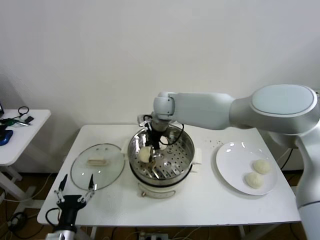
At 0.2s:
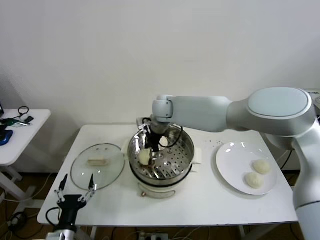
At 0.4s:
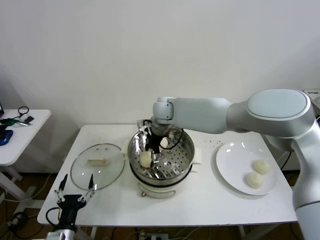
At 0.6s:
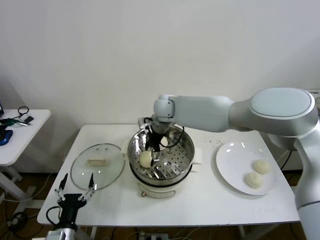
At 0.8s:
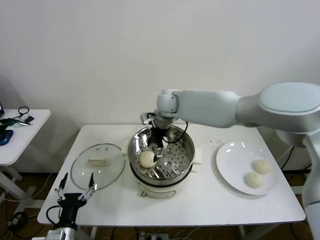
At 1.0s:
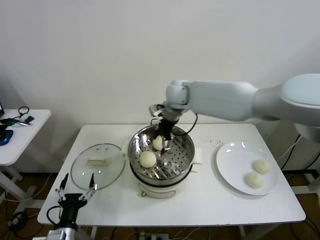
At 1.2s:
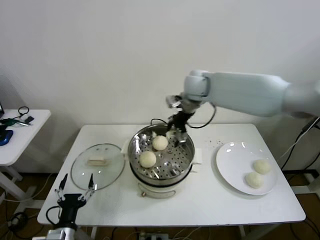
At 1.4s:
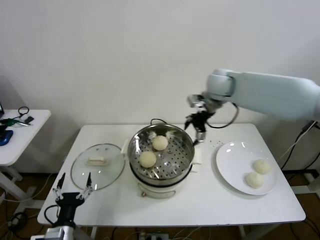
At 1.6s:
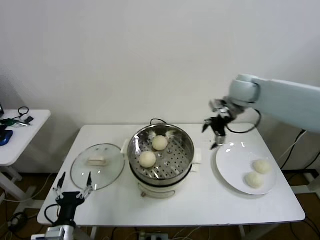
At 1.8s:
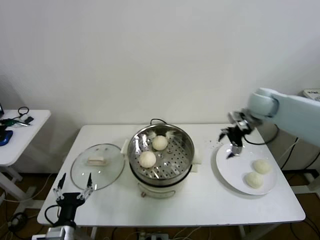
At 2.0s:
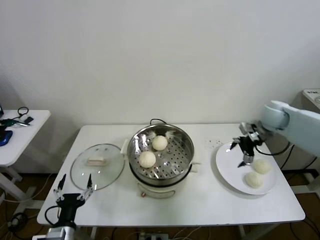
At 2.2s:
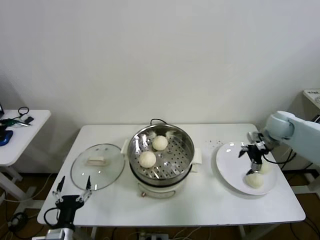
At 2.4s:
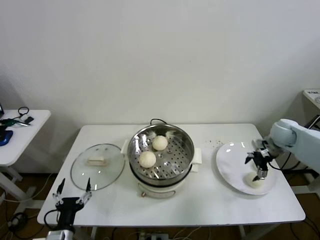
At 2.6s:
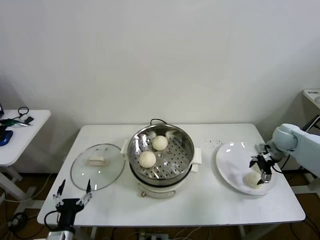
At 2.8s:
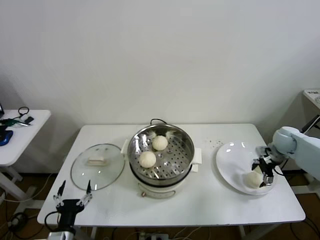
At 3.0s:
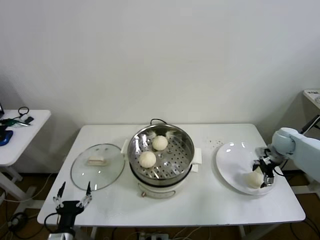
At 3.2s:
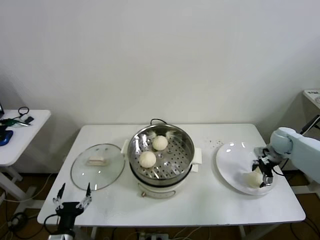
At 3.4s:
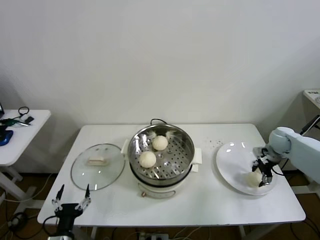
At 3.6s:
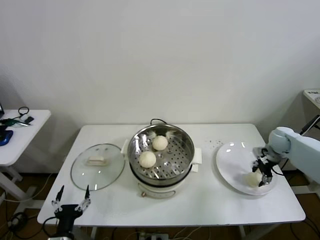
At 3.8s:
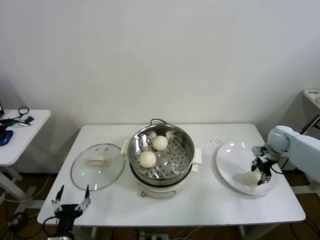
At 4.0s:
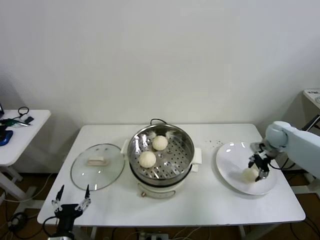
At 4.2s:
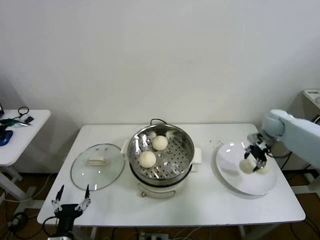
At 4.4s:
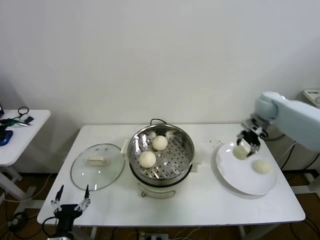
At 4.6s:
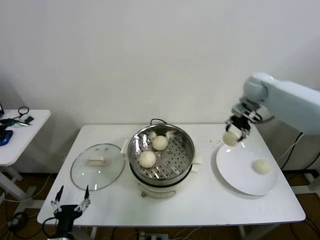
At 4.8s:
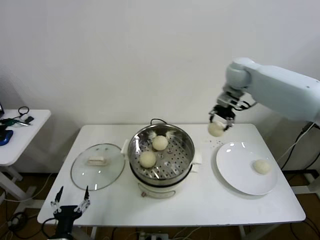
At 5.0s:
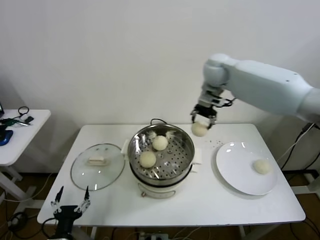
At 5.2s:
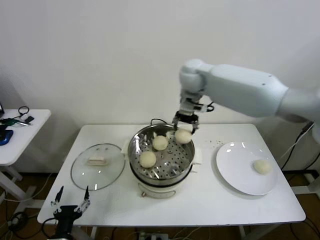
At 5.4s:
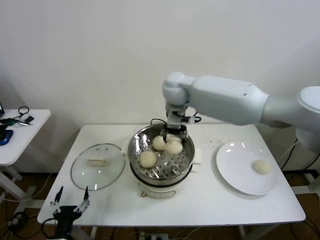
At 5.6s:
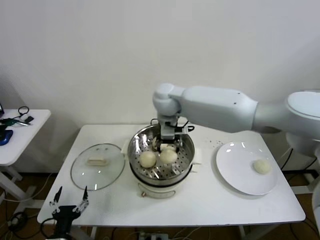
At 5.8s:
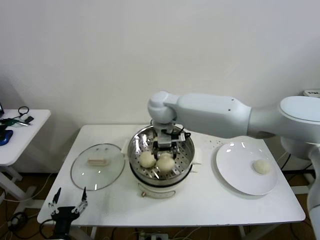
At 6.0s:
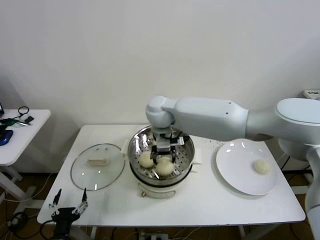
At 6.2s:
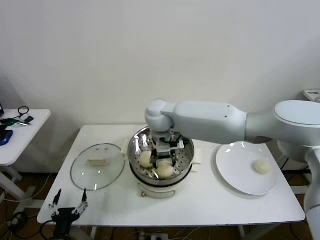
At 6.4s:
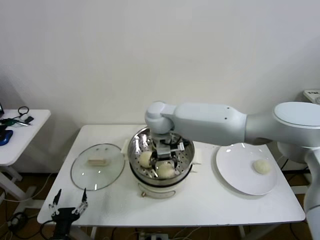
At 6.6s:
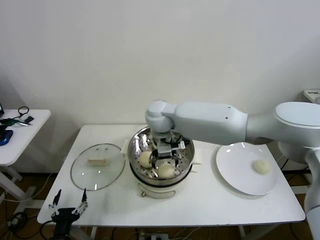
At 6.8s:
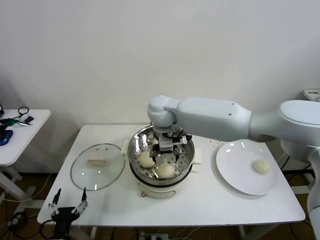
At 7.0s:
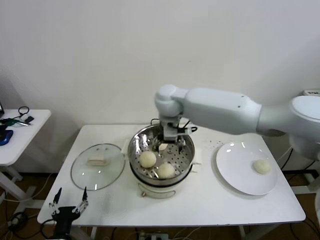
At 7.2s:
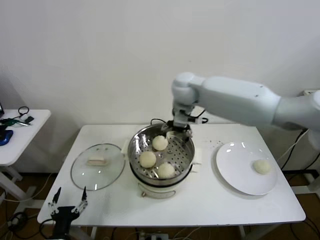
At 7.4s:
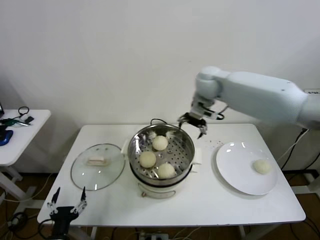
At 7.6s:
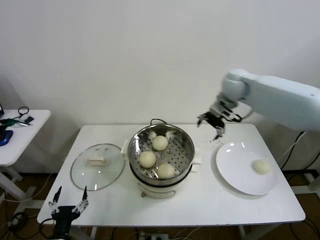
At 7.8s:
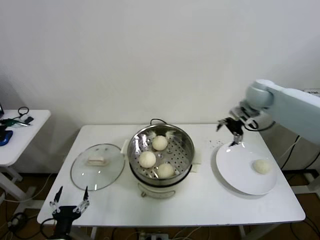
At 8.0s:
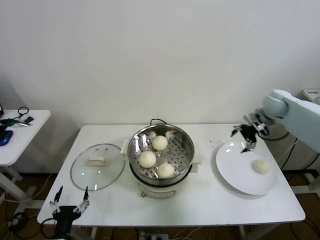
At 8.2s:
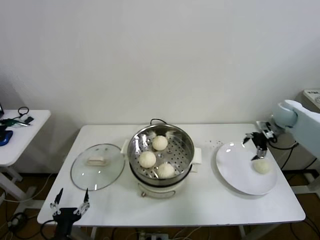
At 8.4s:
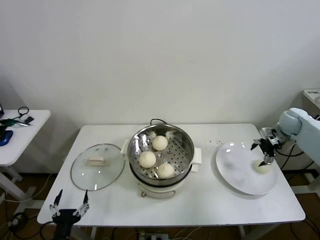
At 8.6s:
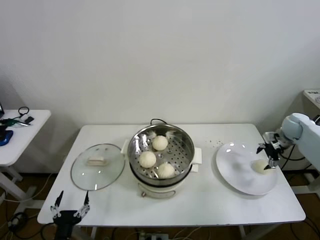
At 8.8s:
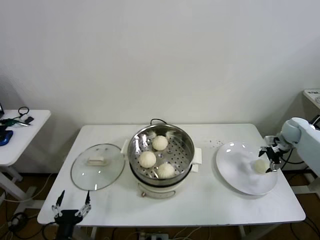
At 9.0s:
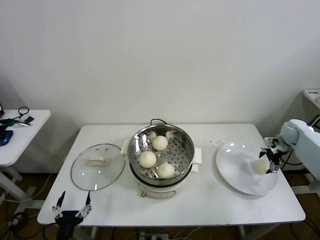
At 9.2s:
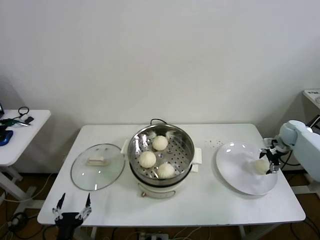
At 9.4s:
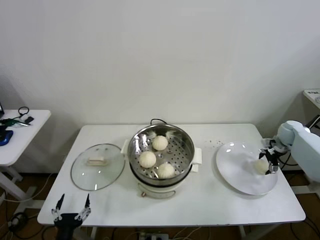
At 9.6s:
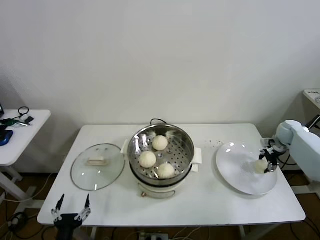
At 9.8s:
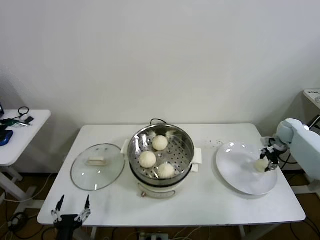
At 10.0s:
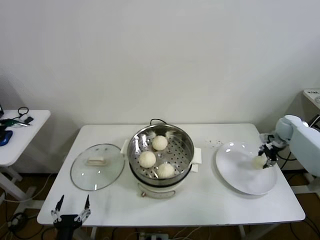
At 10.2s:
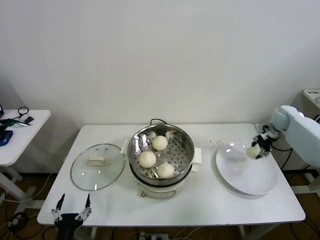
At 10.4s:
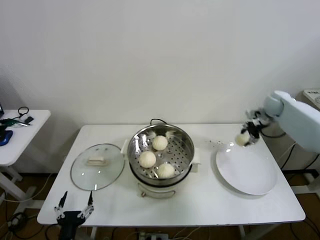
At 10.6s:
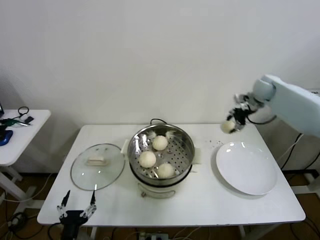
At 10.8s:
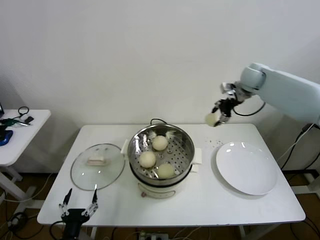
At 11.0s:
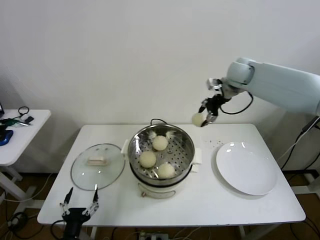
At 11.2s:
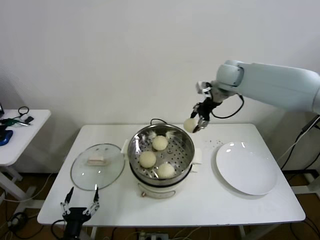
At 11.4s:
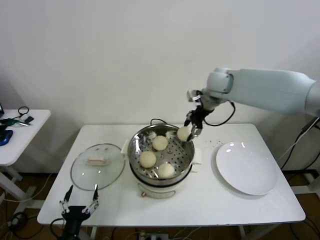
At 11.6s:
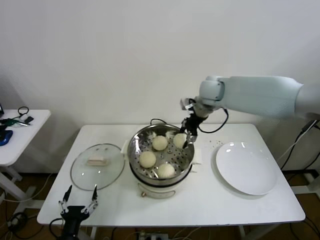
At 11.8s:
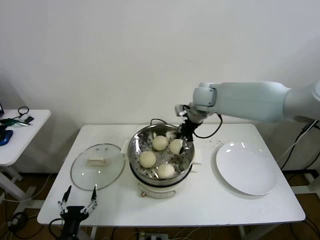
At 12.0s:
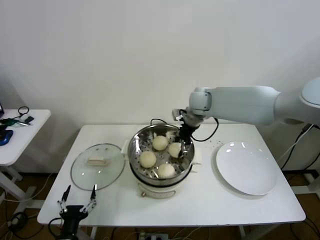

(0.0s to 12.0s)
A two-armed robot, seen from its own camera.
Step, 0.8s - 3.4s: Grasp the baozi in the plate with right gripper.
Step, 3.8s - 6.2s: Place the baozi on the steamer with right gripper.
Step, 6.6s - 9.6s: Grasp the baozi in the plate with right gripper.
0.0s - 1.6s: The right gripper is displaced to the right by roughly 25 cm, and opens its fingers.
1.6s - 3.0s: The right gripper heads downward and to the right, covering roughly 25 cm.
3.0s - 4.4s: The right gripper goes some 20 cm upward, to the left and forward, and closes its fingers.
4.4s - 6.0s: The right gripper is displaced to the left by roughly 40 cm.
6.0s - 7.6s: The right gripper moves to the right, about 25 cm, and opens.
7.6s - 9.0s: The right gripper travels to the right and downward by some 35 cm.
9.0s - 10.4s: The right gripper shifts about 15 cm upward, to the left and forward, and closes up.
10.4s - 12.0s: The right gripper shifts roughly 30 cm to the left.

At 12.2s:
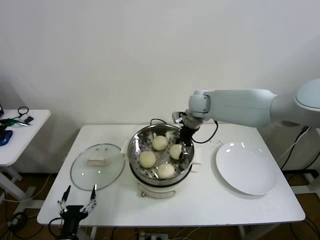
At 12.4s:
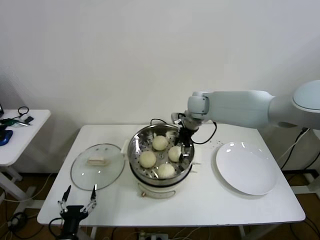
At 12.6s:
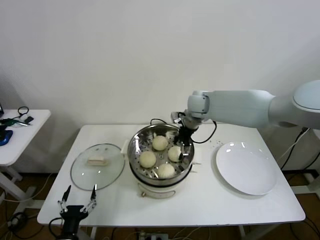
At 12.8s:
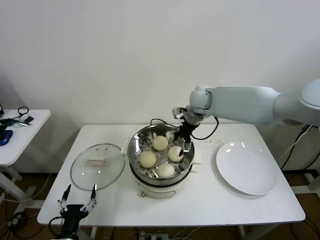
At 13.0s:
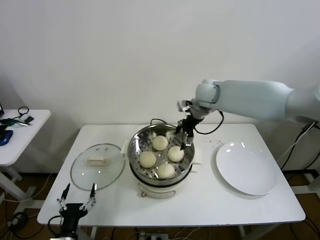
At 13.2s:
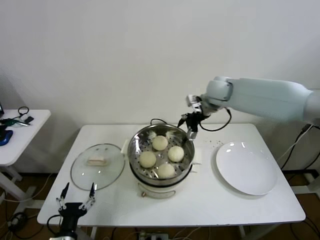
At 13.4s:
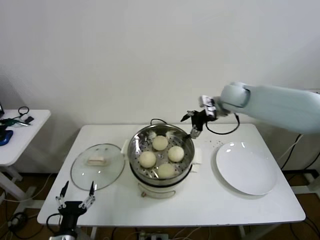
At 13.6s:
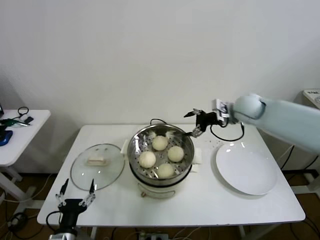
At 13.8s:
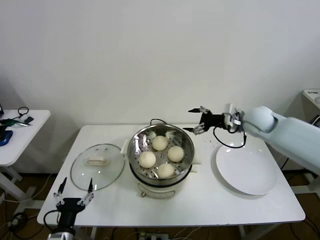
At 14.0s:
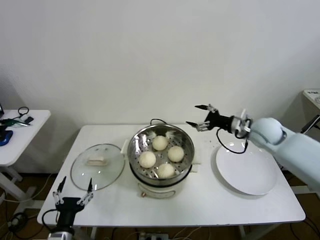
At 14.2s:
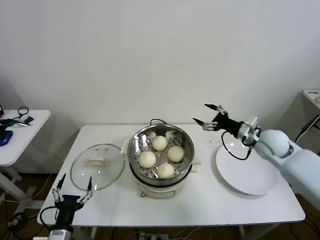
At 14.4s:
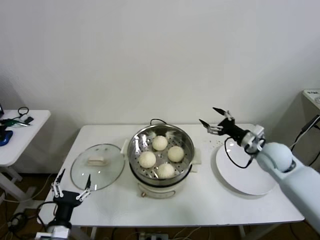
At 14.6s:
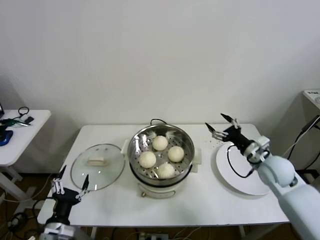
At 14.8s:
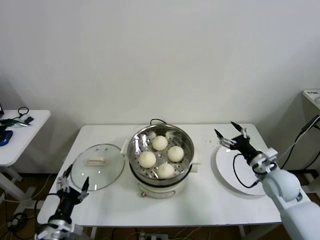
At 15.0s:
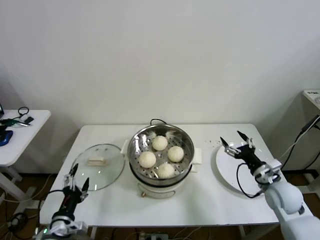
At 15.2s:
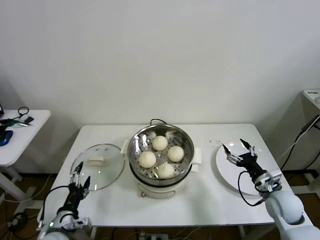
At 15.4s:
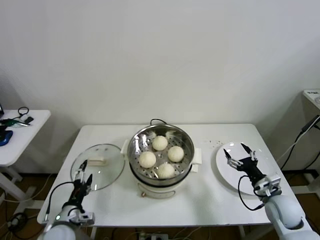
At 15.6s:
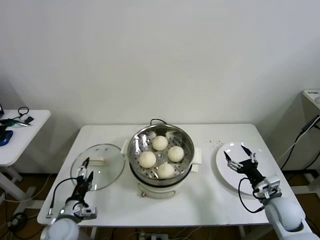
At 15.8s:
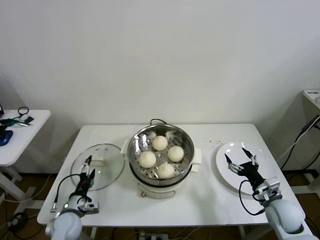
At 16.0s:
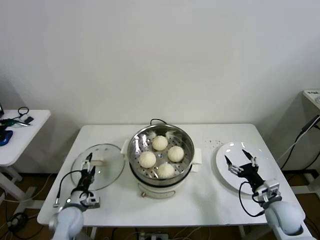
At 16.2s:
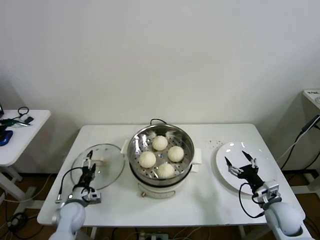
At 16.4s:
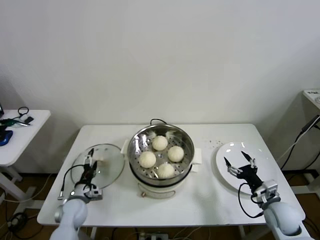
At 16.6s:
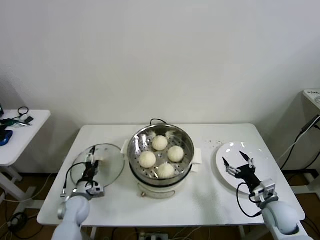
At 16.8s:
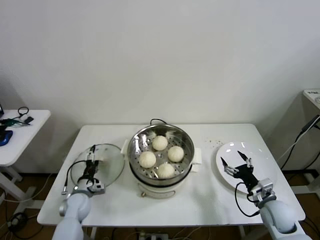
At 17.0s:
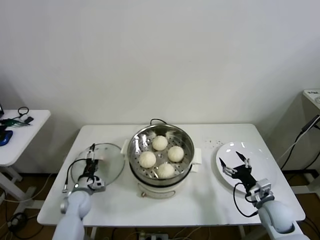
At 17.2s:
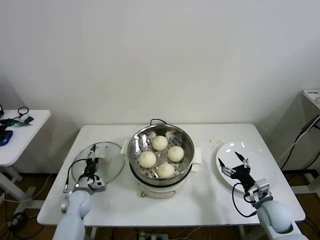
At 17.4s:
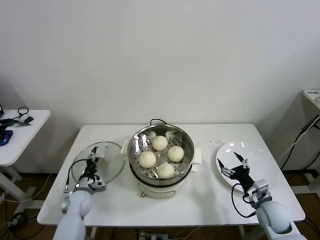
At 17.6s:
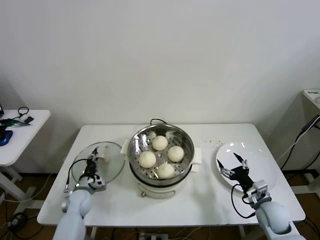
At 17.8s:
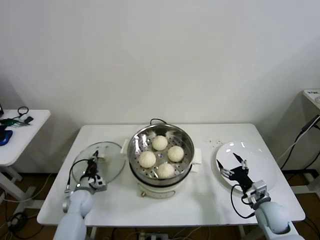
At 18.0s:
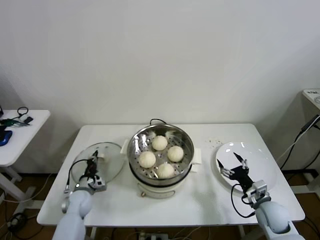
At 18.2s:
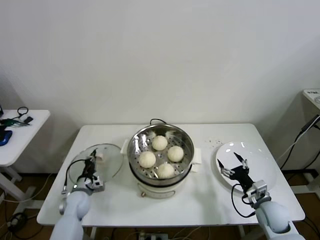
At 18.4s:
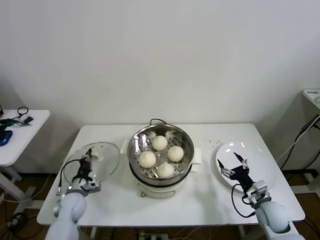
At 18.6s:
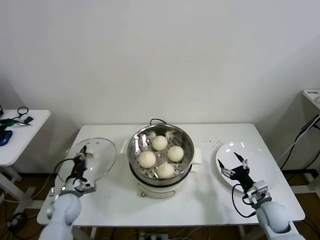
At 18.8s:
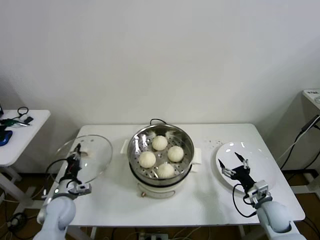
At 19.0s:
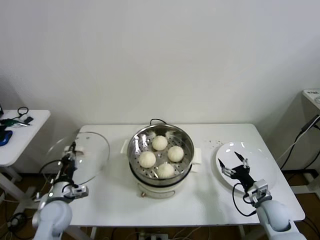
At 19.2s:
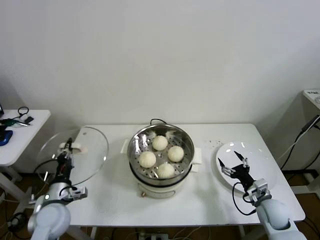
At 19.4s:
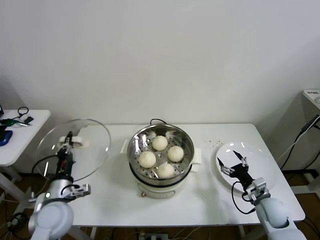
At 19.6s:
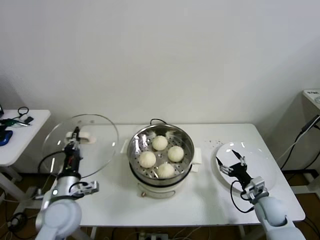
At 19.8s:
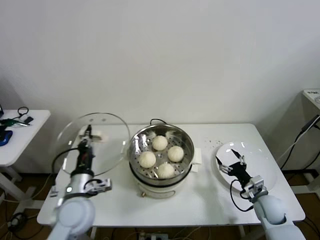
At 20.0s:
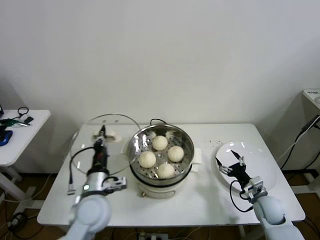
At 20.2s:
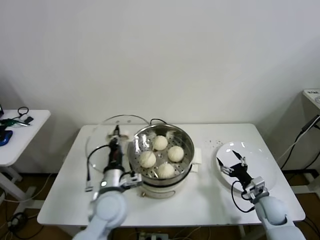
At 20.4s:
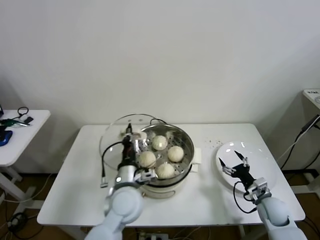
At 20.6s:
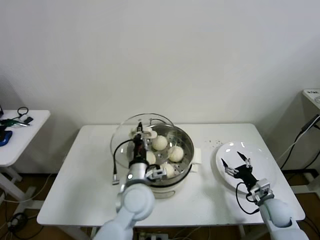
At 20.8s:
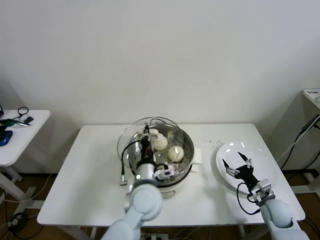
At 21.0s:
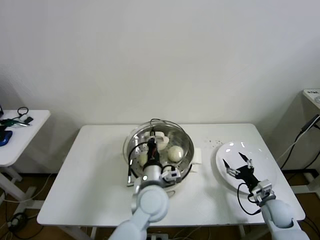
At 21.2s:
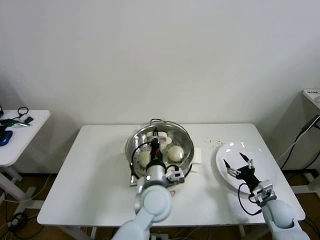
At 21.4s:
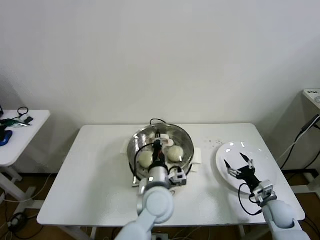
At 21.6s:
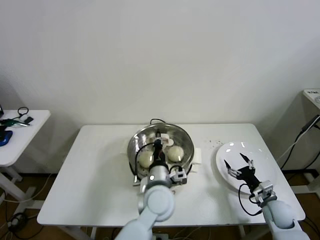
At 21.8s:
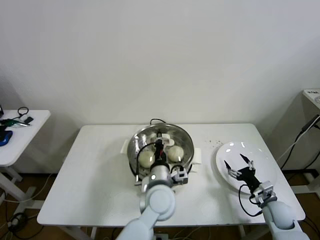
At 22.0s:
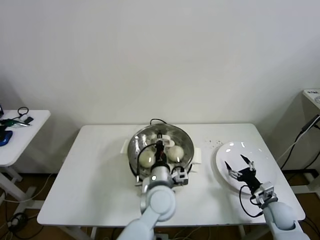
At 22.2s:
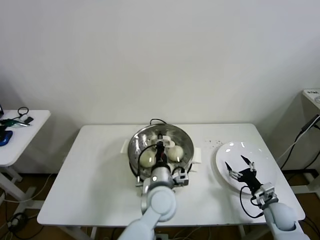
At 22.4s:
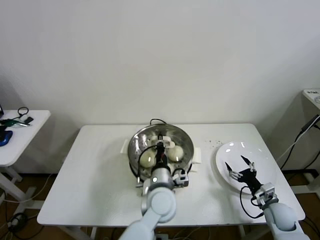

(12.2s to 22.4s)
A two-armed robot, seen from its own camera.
Step, 12.6s - 17.6s: Grasp the pot lid with left gripper.
12.2s - 13.6s: The right gripper heads to the right, covering about 15 cm, and opens its fingers.
13.6s - 15.2s: The right gripper shifts approximately 35 cm backward, downward and to the right. Meanwhile the left gripper shifts roughly 5 cm forward.
15.2s - 16.6s: The left gripper travels forward and downward by about 15 cm.
16.6s - 18.0s: The left gripper closes its fingers.
18.0s - 19.4s: The left gripper shifts roughly 20 cm upward and backward.
19.4s - 21.0s: The left gripper goes some 30 cm to the right.
21.0s - 22.4s: The grippers make only small movements.
